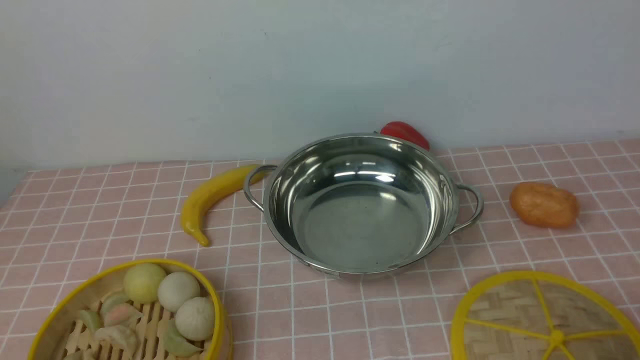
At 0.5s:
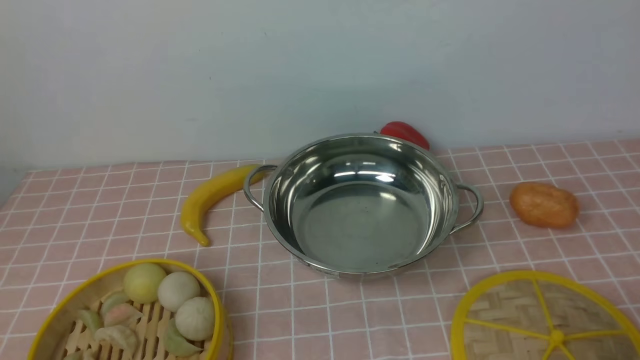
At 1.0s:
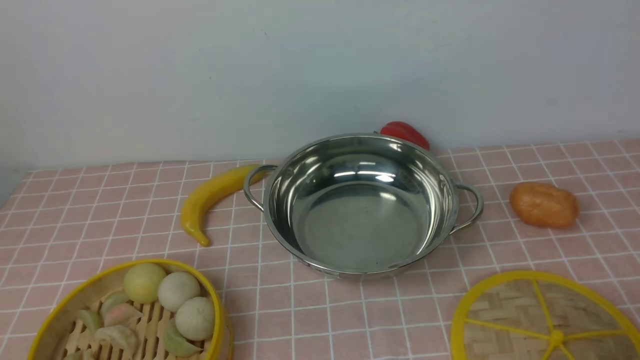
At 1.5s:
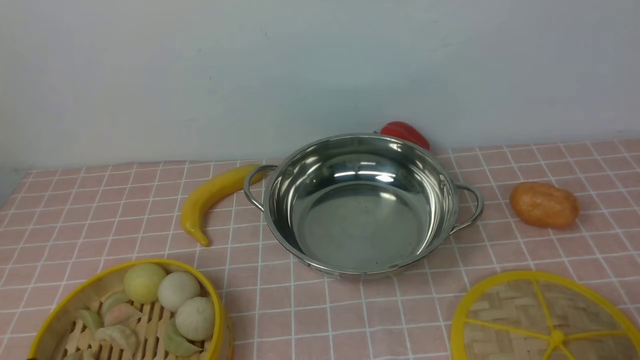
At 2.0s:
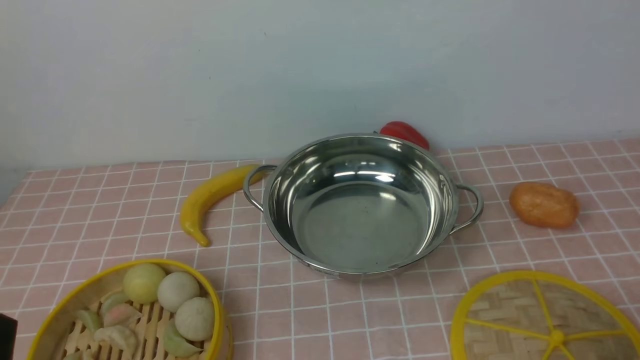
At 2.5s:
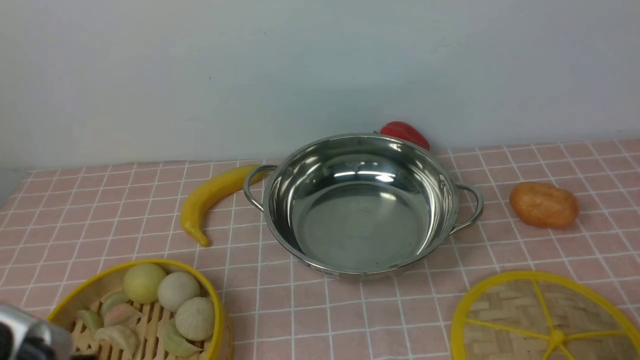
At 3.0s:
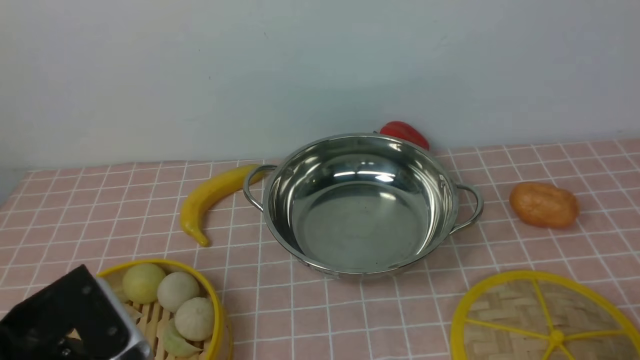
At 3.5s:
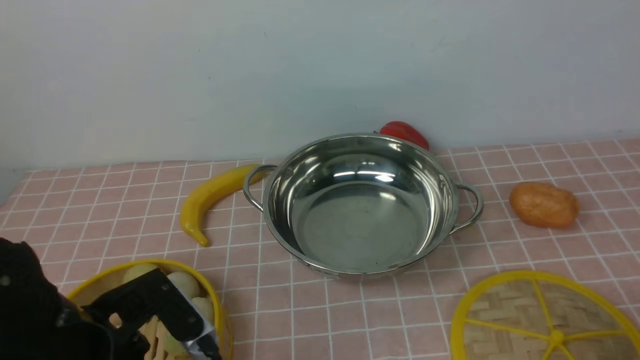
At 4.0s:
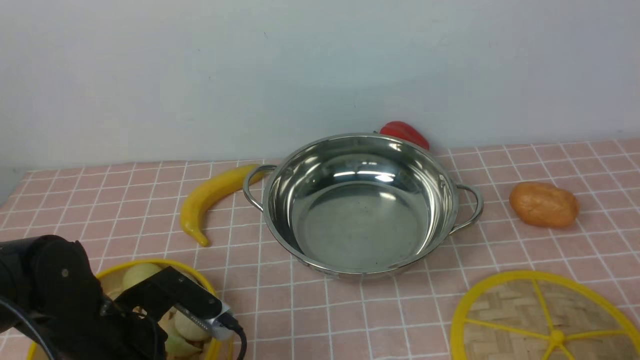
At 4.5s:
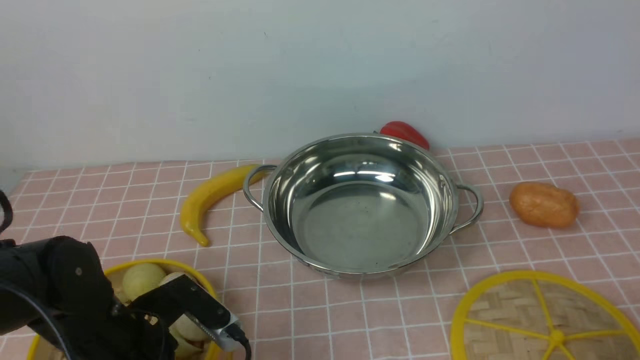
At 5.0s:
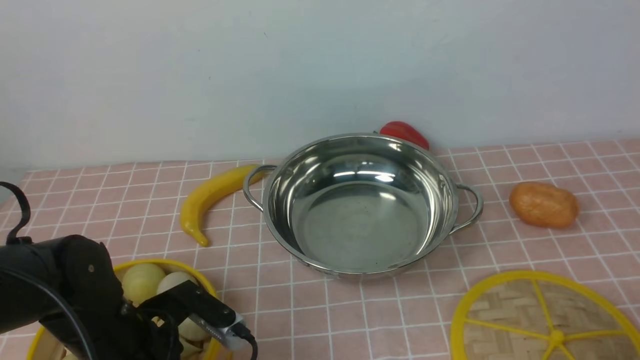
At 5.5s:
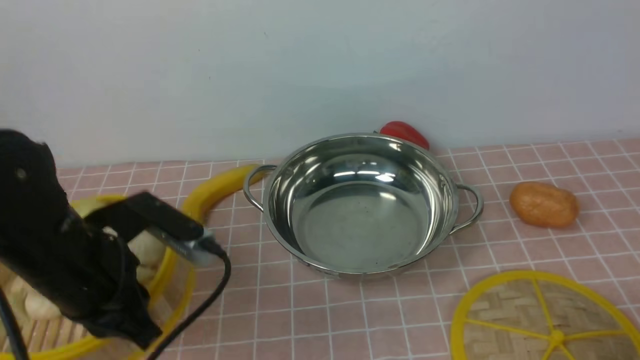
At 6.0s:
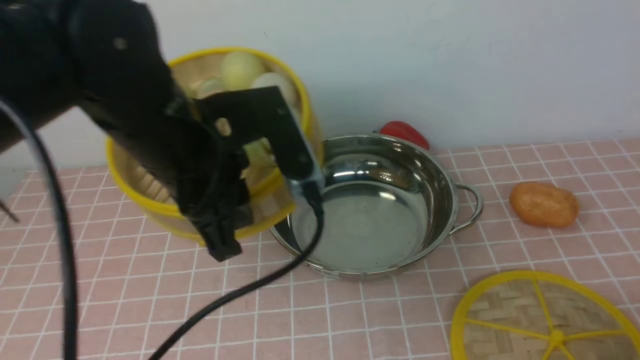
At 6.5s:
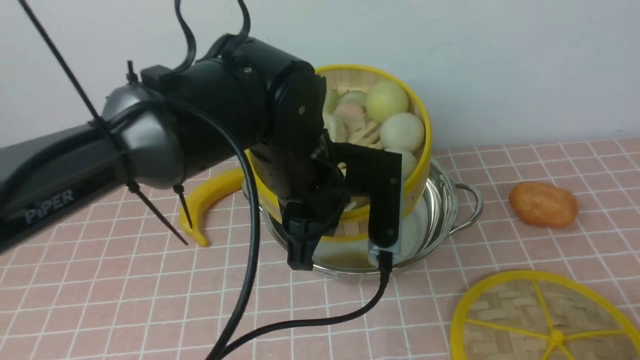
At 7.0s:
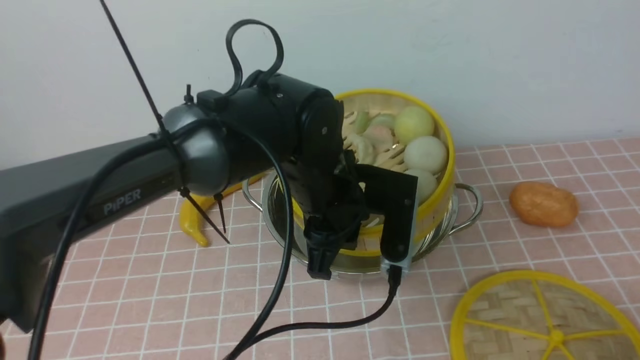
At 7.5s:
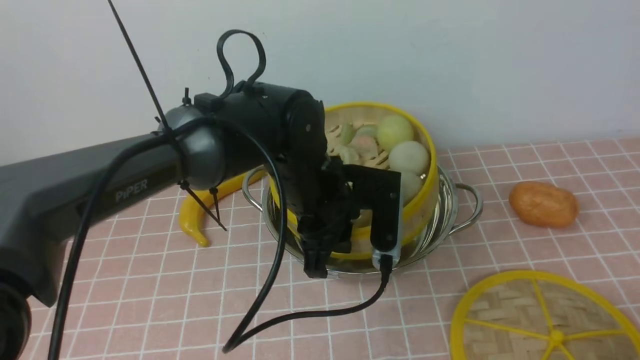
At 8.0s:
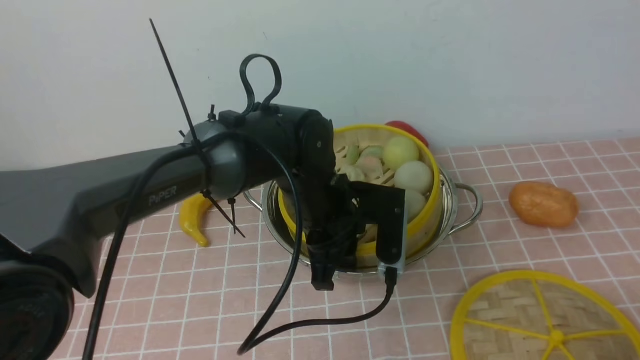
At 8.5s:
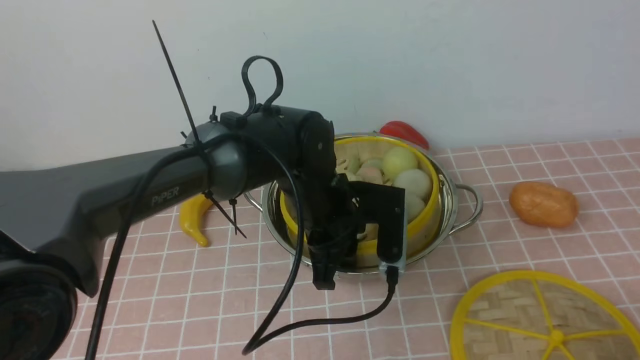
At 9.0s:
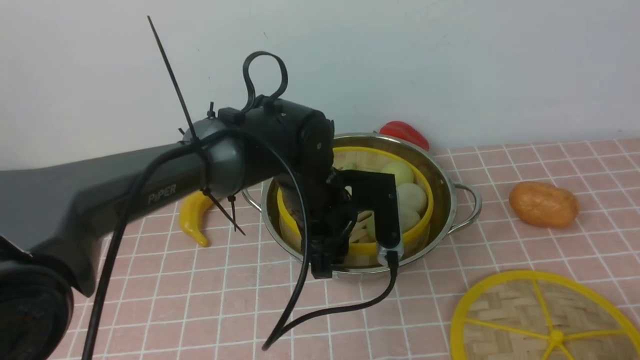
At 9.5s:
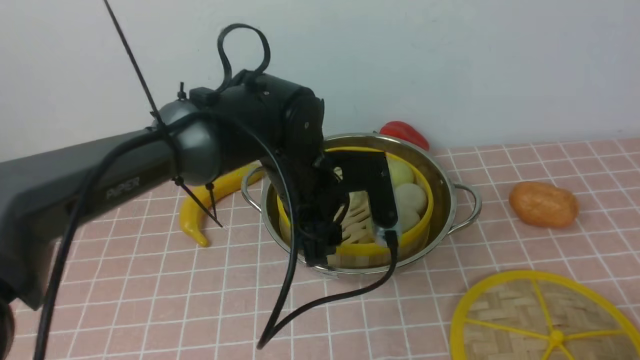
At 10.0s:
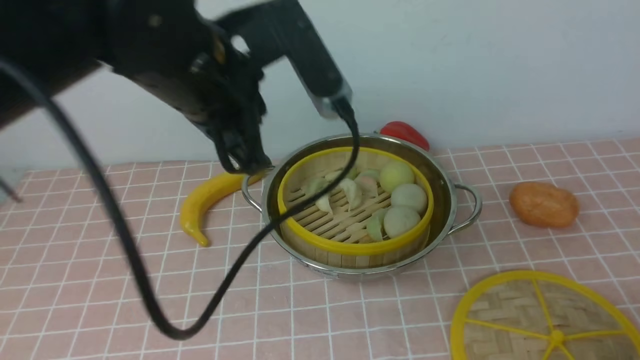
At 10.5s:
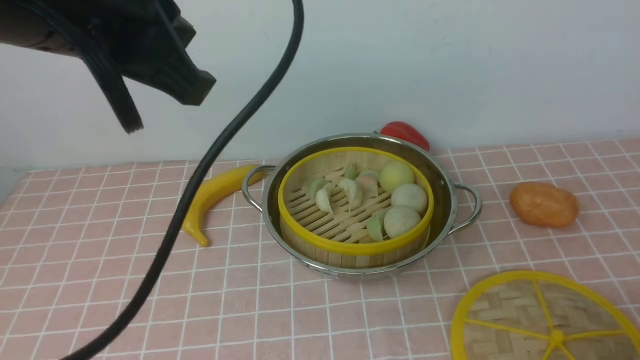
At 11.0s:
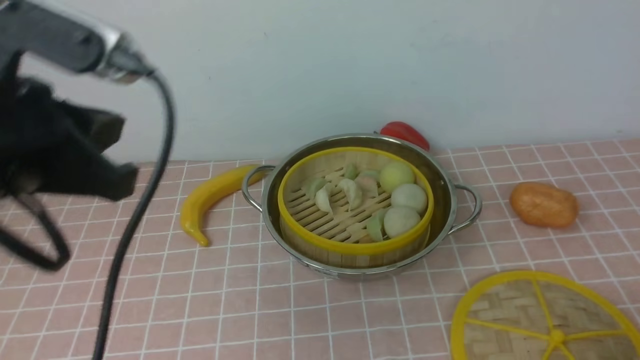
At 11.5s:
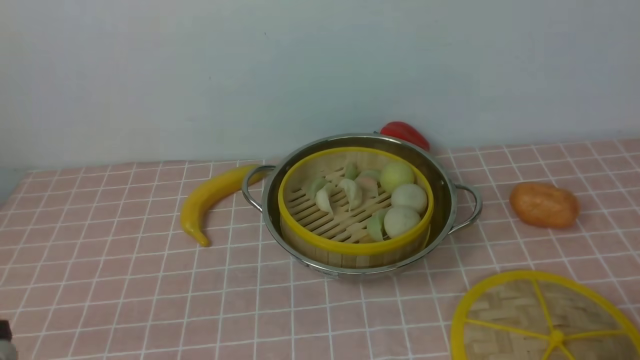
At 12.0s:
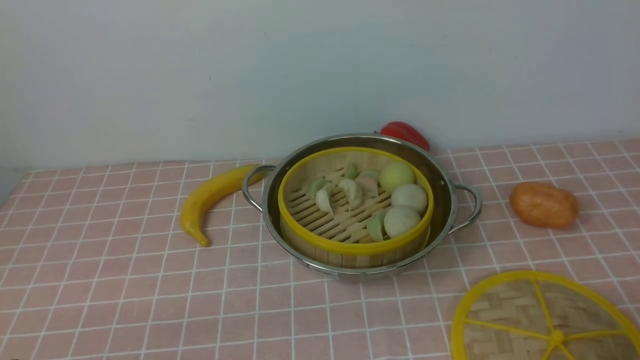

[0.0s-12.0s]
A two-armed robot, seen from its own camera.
Task of the whole recording: place the steamer in the pot on the pink tablecloth, and put the lid on the steamer.
Step, 0.0s to 5.0s: use the left arm to lift the steamer closest to it.
Step, 5.5s to 9.5s: use the left arm to put the steamer into the iron steamer pot in the middle.
2.0s to 4.0s: The left gripper heads forward, covering about 15 cm, and opens up.
4.0s to 6.0s: The left gripper is displaced upward, to the right and forward by roughly 20 cm, and closes.
6.0s to 8.0s: The left gripper travels downward, to the right and forward by approximately 15 cm.
8.0s to 10.0s: The left gripper is displaced upward by some 20 cm, and opens and closes again.
10.0s to 12.0s: The left gripper moves backward, downward and to the left, some 35 cm.

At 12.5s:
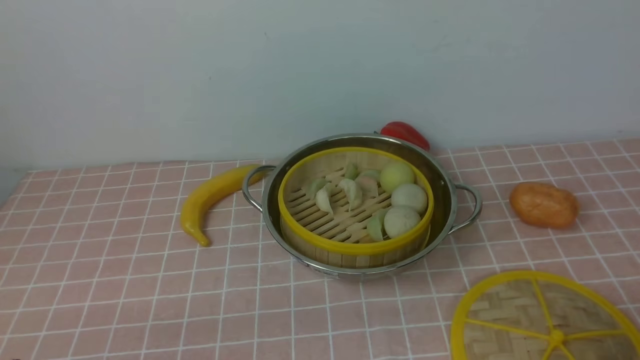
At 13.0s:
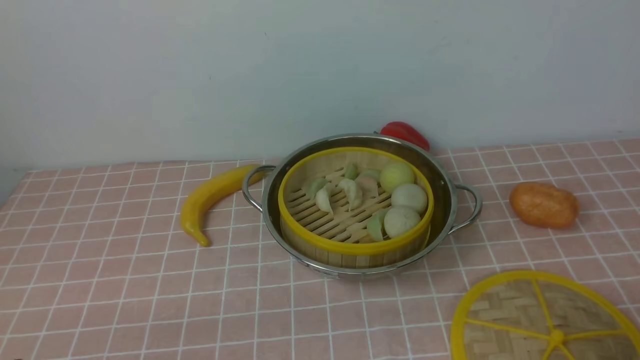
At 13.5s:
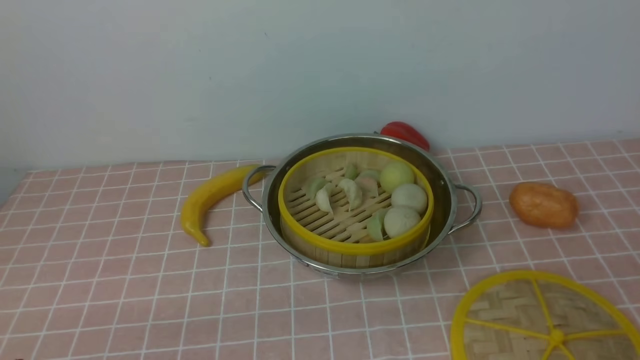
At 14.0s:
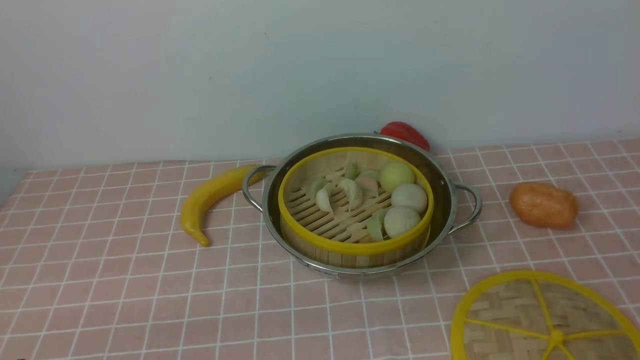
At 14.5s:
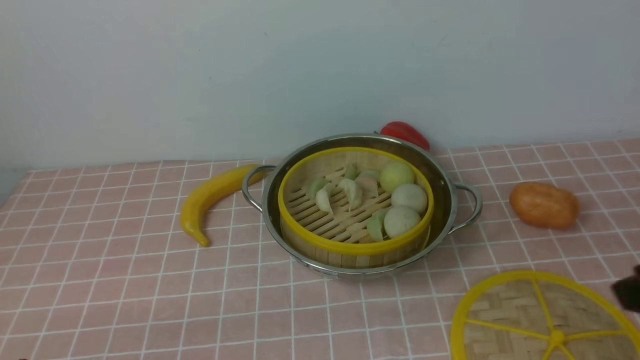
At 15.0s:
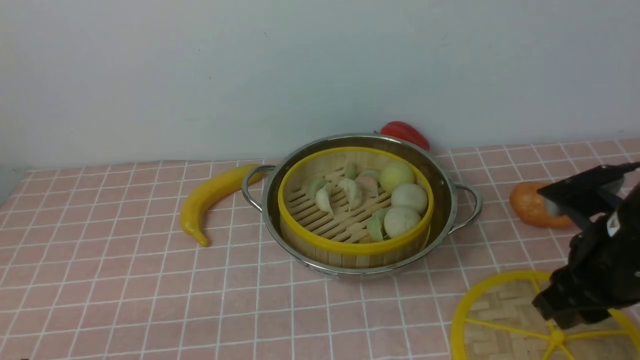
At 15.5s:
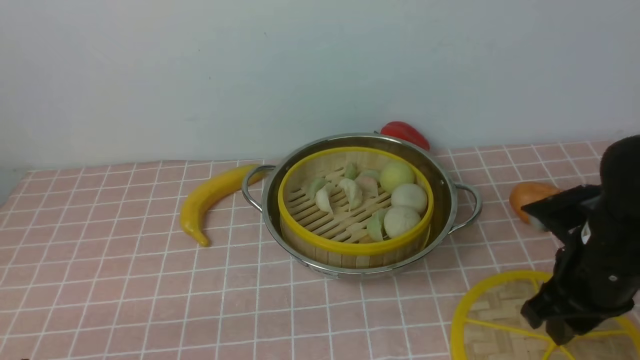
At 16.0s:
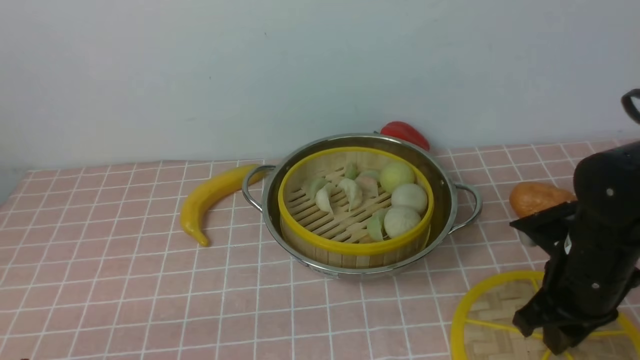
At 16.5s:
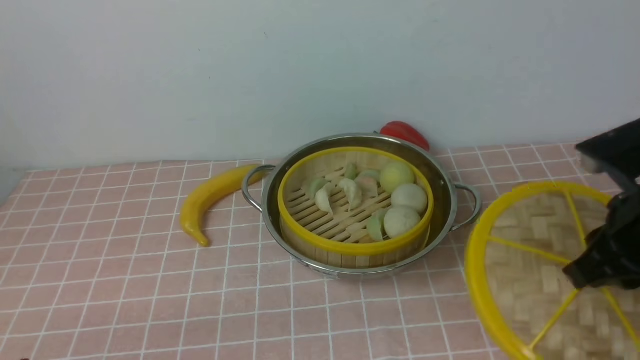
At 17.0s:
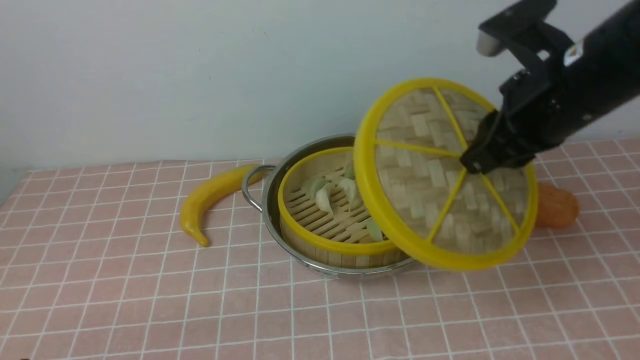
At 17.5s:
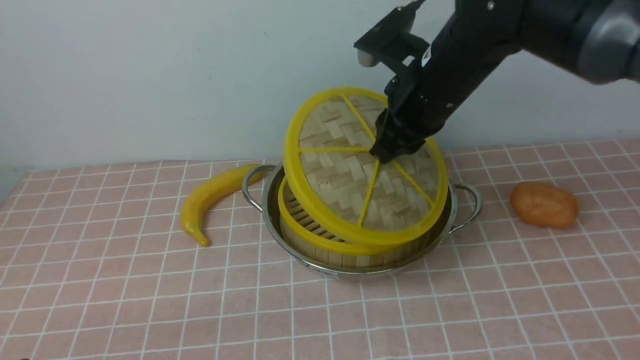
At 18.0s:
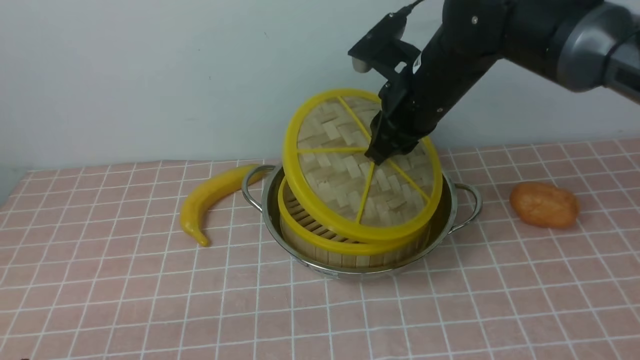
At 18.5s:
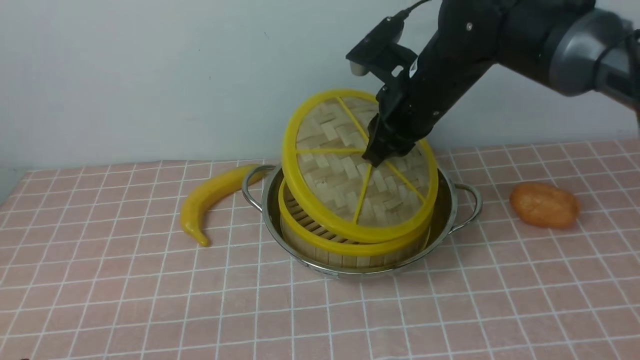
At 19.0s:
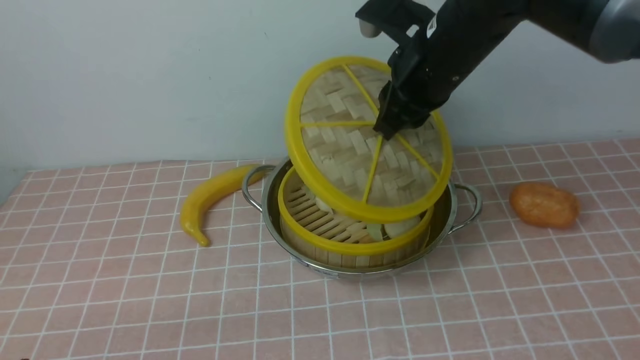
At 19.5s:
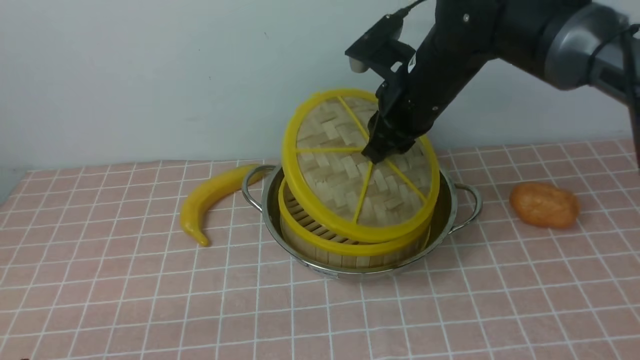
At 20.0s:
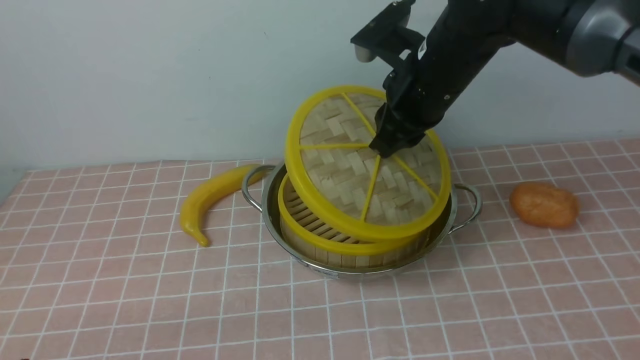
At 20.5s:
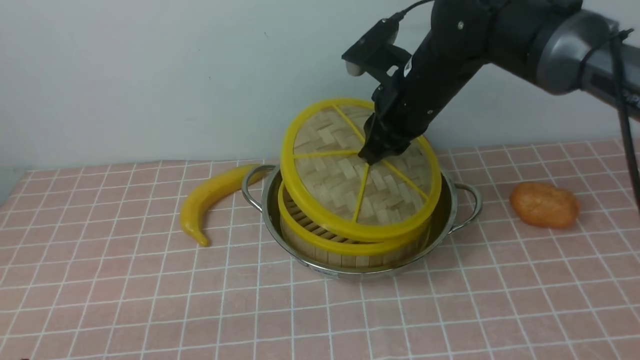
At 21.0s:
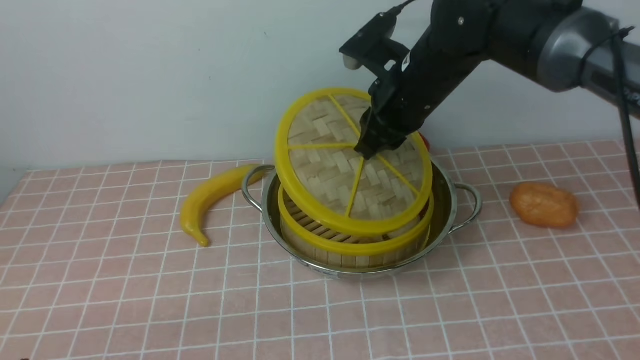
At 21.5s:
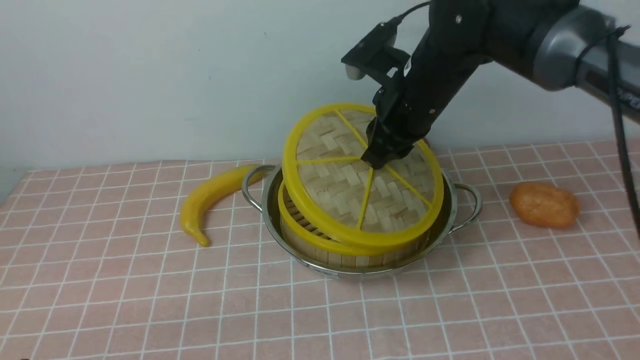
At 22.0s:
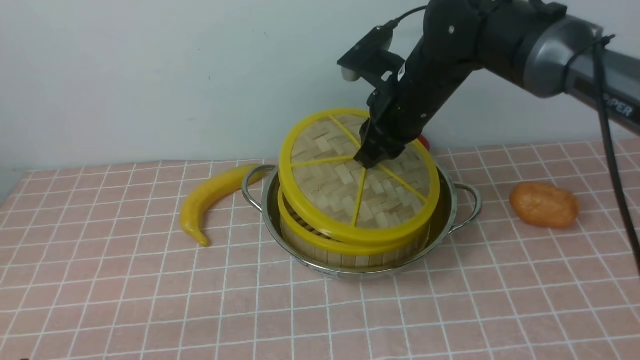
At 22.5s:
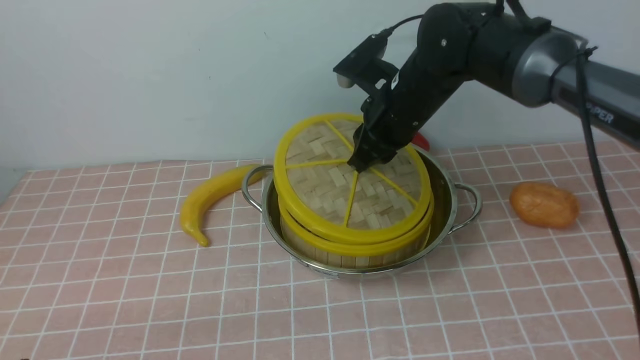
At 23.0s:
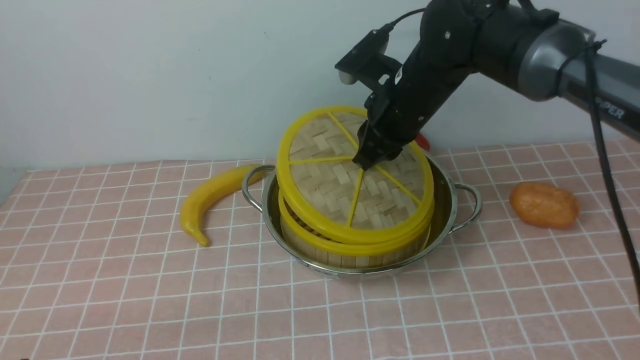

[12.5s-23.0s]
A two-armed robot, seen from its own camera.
Task of the whole recording: place the steamer in the pot on the pink tablecloth, and put the lid on the steamer.
Step, 12.5s to 16.0s: use the right arm to lift the lid of the steamer.
14.5s to 16.5s: The right gripper travels forward by about 10 cm, goes downward and returns, roughly 15 cm each way, and closes its fingers.
16.5s to 19.0s: The right gripper shifts some 20 cm forward and to the left.
19.0s to 21.0s: The grippers make only small movements.
21.0s to 23.0s: The grippers make only small movements.
